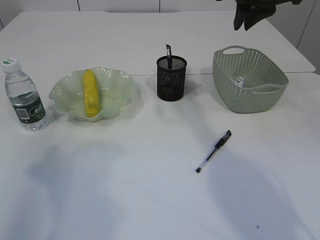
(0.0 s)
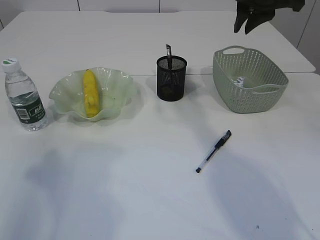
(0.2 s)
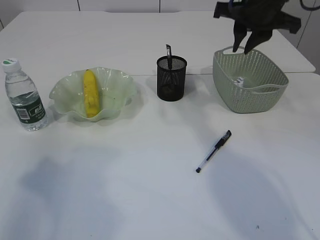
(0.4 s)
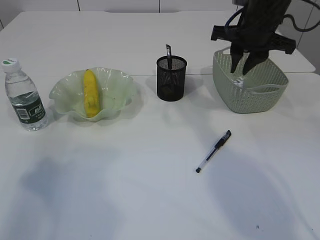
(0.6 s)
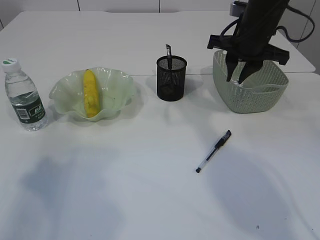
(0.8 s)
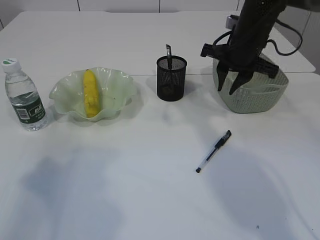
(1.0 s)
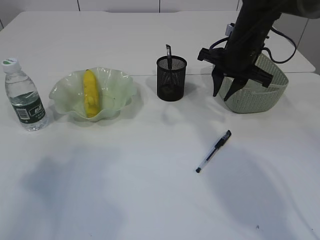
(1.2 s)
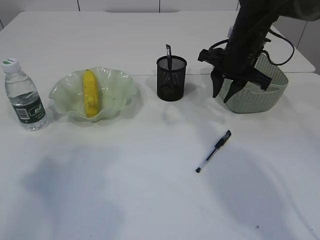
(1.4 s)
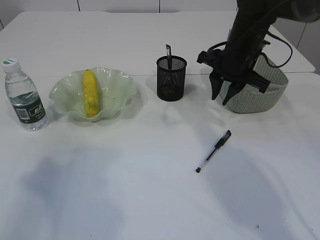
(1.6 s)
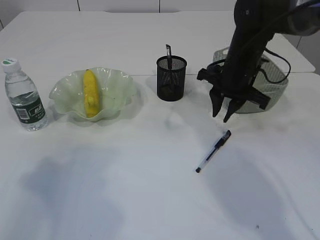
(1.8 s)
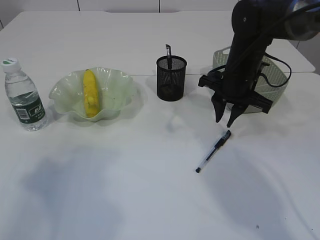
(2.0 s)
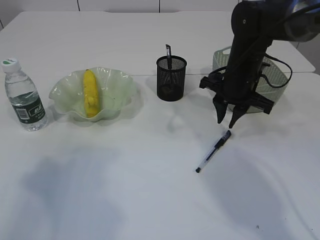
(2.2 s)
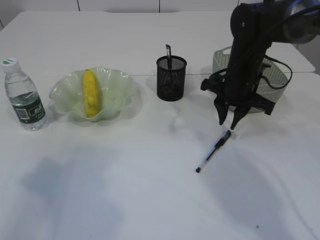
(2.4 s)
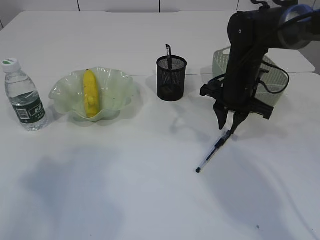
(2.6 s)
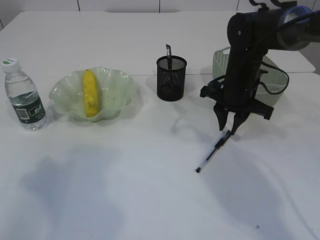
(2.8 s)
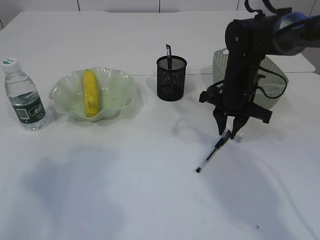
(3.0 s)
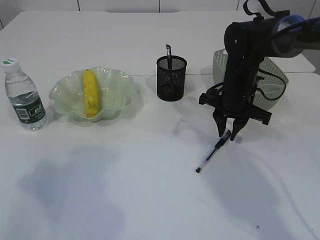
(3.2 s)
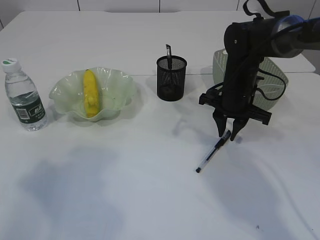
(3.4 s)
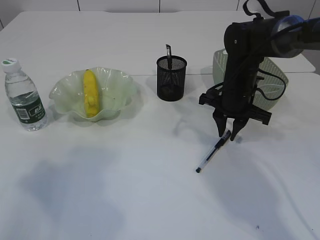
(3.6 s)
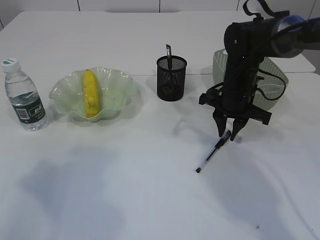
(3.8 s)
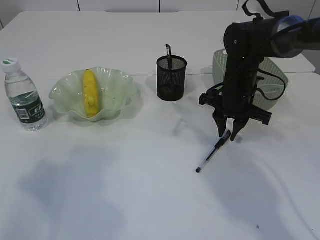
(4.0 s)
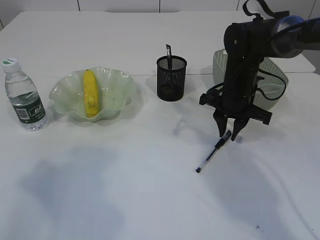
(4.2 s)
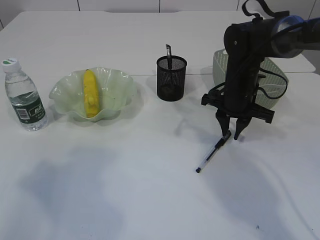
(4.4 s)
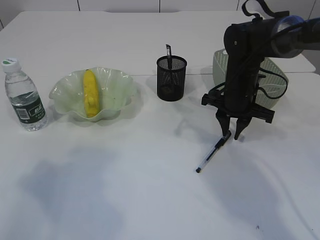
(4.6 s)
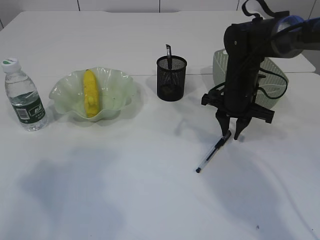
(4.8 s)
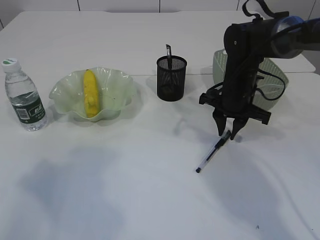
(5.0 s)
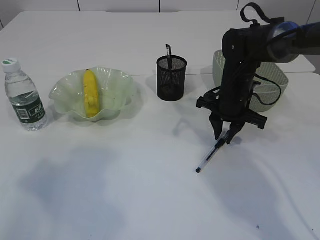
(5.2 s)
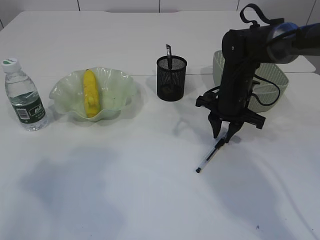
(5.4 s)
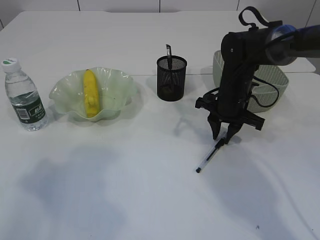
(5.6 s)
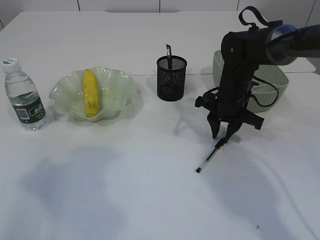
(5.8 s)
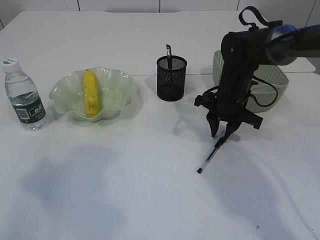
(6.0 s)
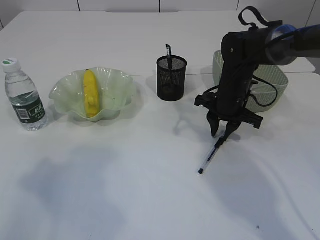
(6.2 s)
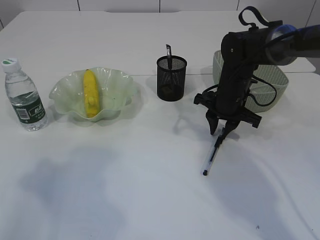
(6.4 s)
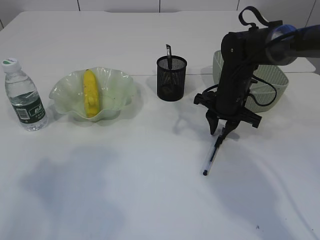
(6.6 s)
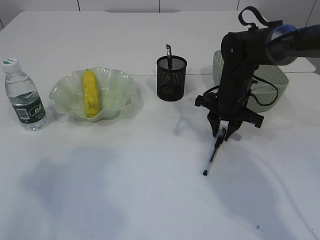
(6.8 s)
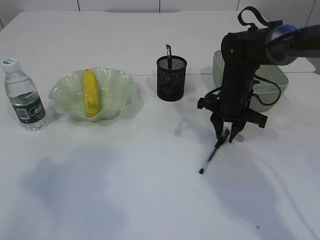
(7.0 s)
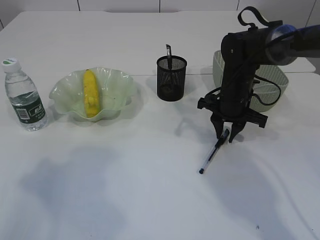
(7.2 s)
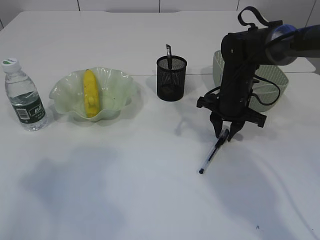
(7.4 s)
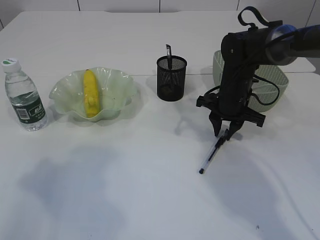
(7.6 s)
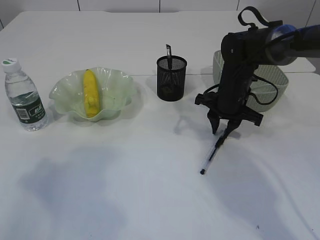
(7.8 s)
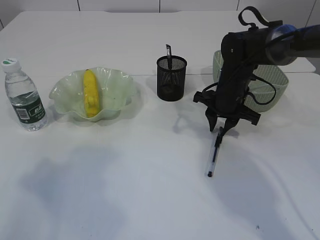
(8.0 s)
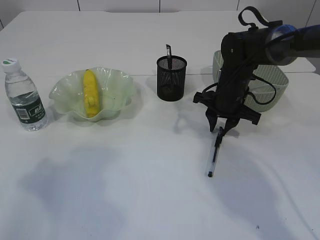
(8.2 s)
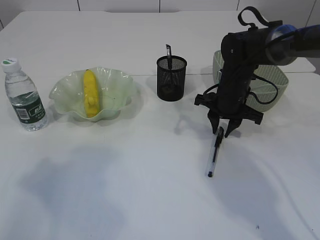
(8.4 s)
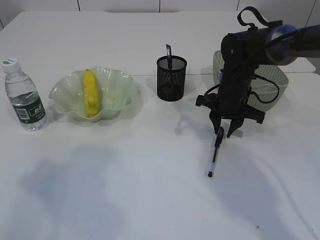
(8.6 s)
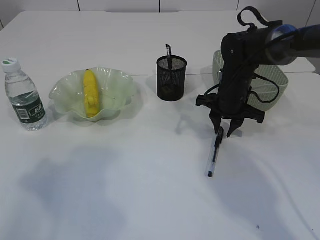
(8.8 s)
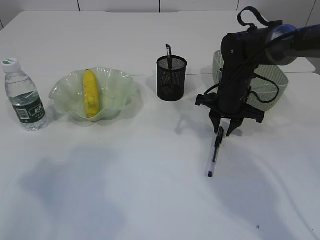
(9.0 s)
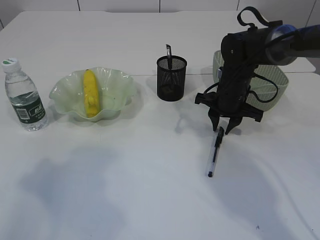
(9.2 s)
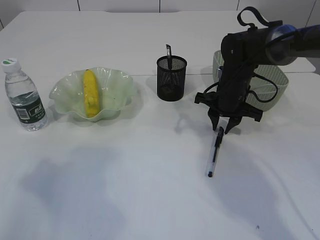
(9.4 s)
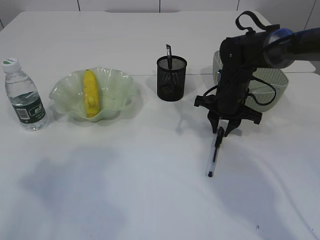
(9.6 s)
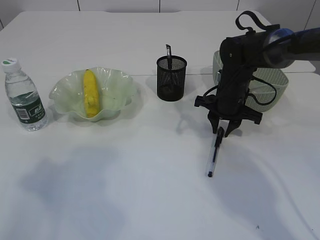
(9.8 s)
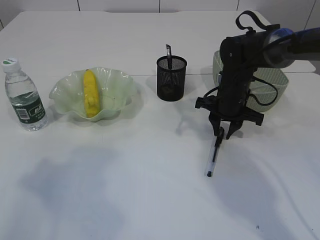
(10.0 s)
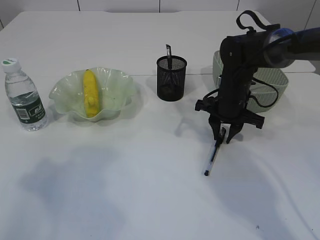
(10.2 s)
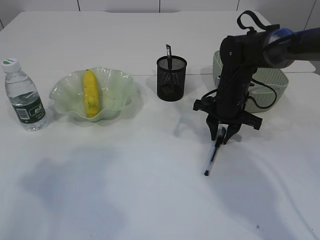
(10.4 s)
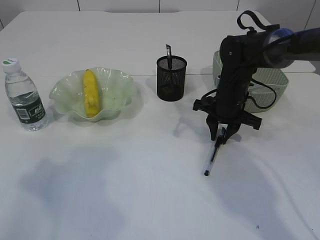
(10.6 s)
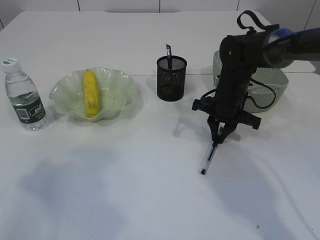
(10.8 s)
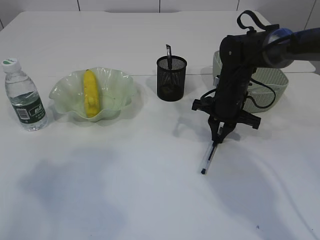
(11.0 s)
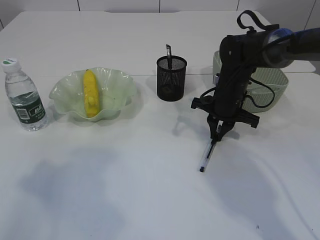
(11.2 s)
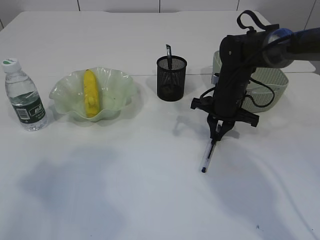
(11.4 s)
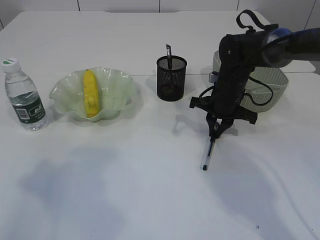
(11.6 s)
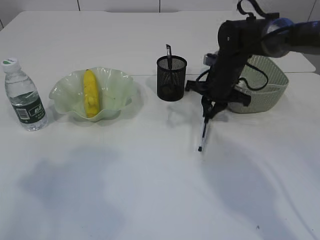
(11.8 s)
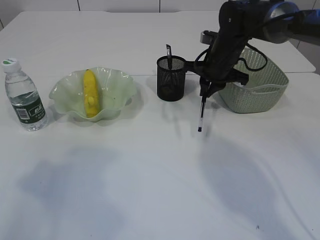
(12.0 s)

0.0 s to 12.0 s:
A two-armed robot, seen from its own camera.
Step, 0.0 to 11.8 s: Pick up the pen with right arm.
0.0 to 1.6 s: The right gripper heads downward, covering some 15 cm.
1.6 to 3.0 s: The right gripper heads downward, covering approximately 5 cm.
3.0 to 4.4 s: The two grippers keep their place.
4.4 to 6.0 s: The grippers move only a little.
6.0 to 7.6 s: Neither gripper changes place.
7.6 to 10.4 s: The grippers stay close to where they were, moving slightly.
10.4 to 12.0 s: The right gripper is displaced upward by roughly 5 cm, and closes up.

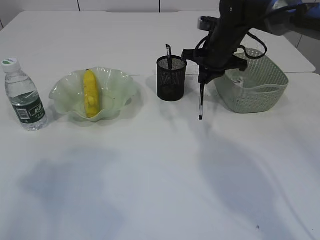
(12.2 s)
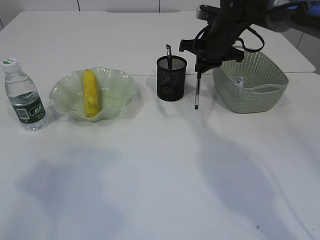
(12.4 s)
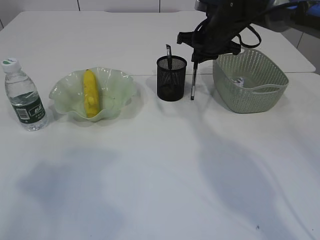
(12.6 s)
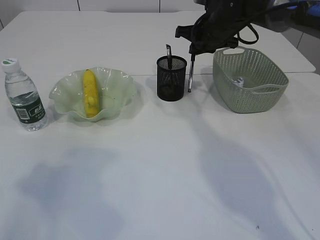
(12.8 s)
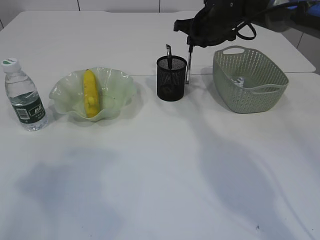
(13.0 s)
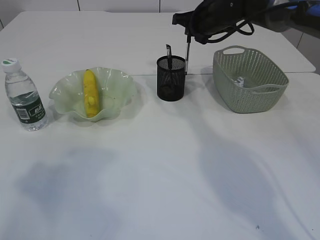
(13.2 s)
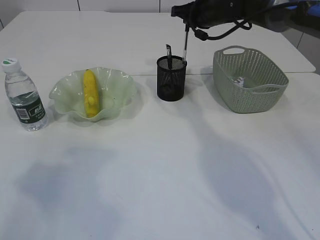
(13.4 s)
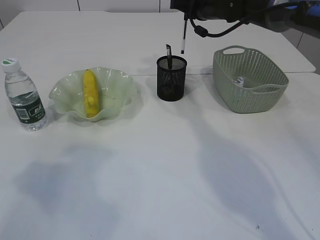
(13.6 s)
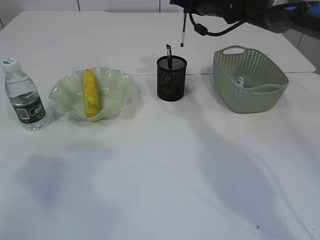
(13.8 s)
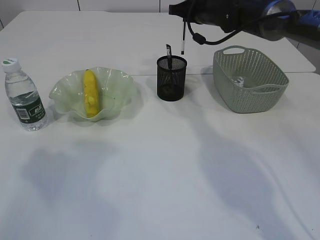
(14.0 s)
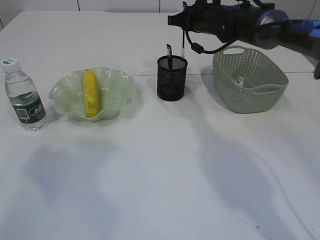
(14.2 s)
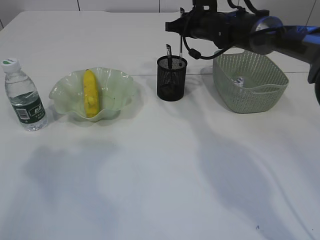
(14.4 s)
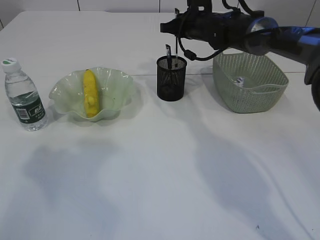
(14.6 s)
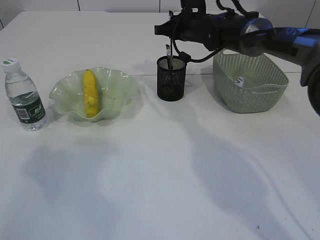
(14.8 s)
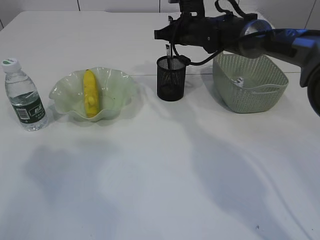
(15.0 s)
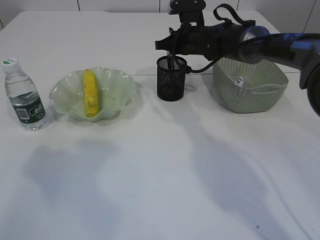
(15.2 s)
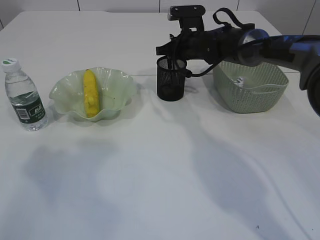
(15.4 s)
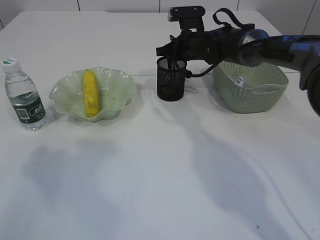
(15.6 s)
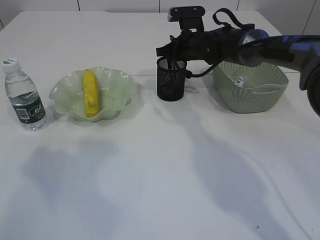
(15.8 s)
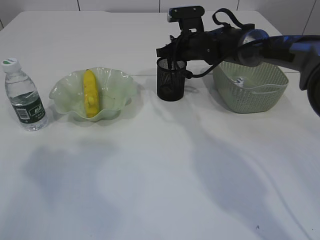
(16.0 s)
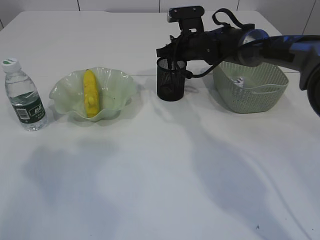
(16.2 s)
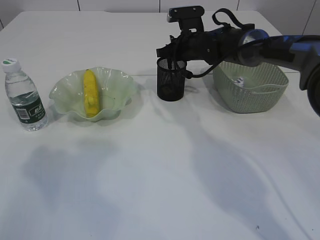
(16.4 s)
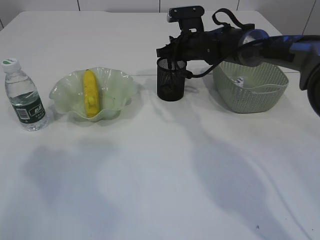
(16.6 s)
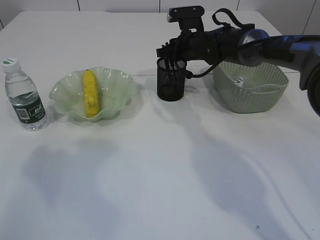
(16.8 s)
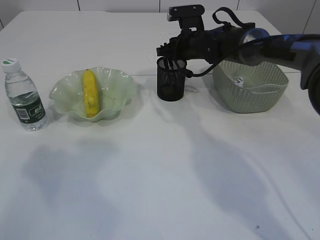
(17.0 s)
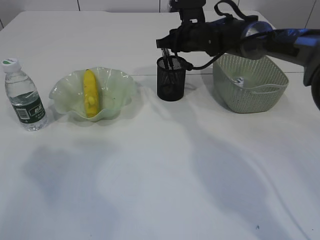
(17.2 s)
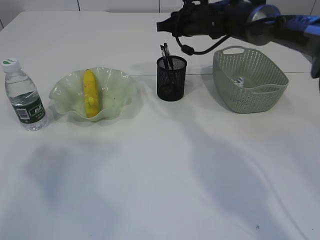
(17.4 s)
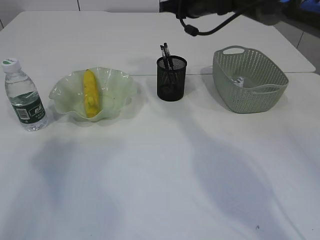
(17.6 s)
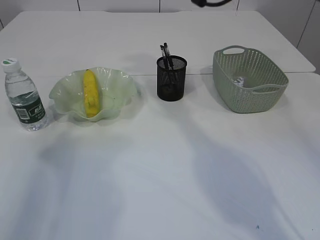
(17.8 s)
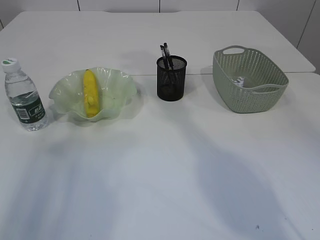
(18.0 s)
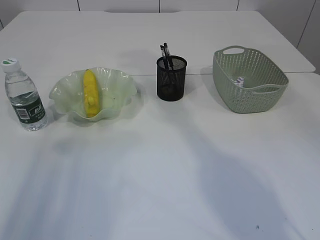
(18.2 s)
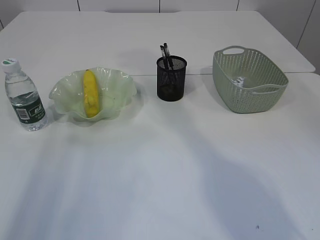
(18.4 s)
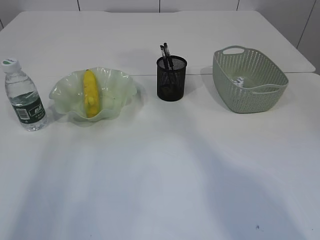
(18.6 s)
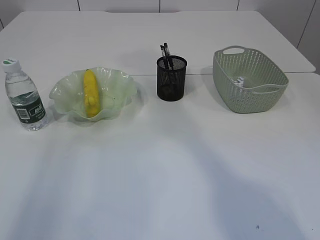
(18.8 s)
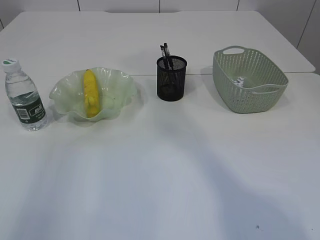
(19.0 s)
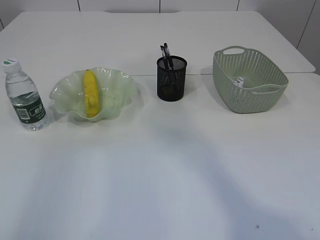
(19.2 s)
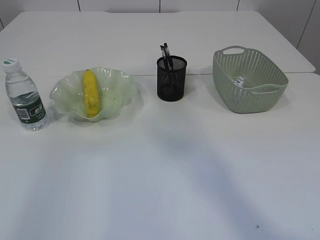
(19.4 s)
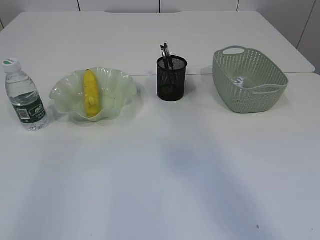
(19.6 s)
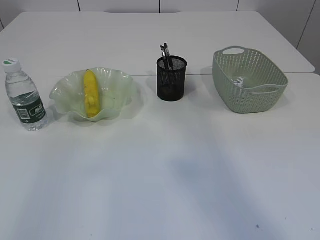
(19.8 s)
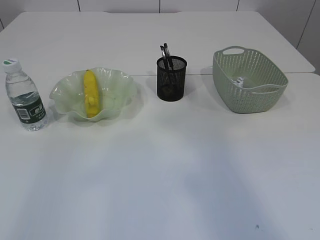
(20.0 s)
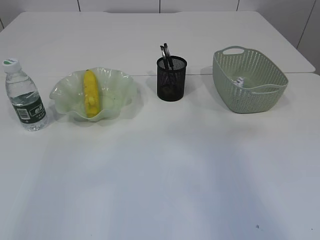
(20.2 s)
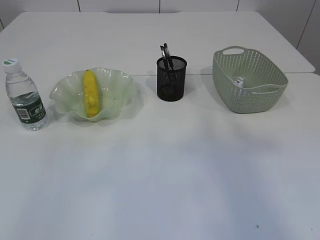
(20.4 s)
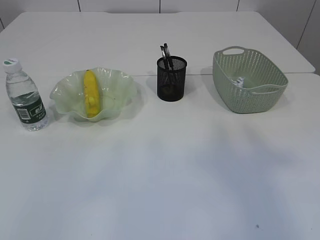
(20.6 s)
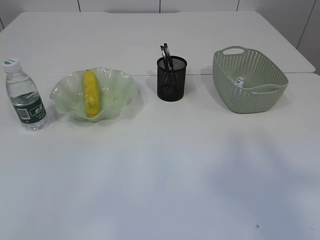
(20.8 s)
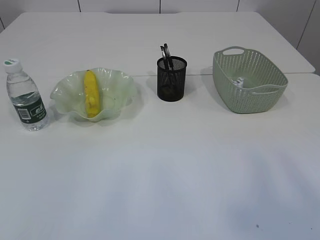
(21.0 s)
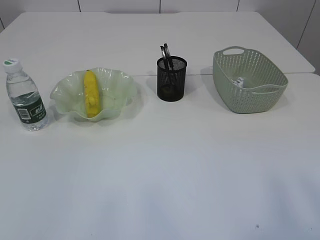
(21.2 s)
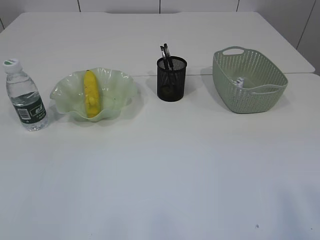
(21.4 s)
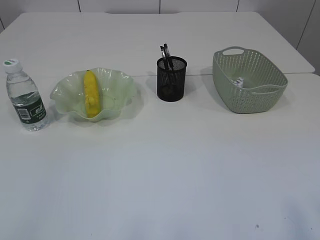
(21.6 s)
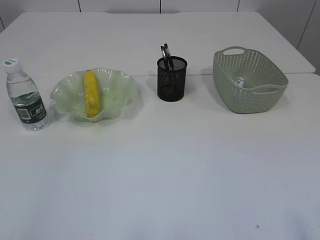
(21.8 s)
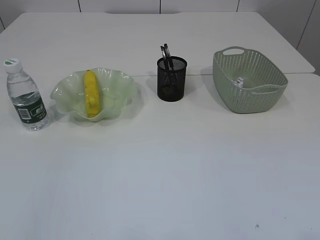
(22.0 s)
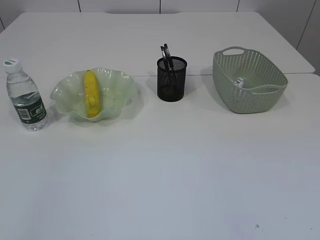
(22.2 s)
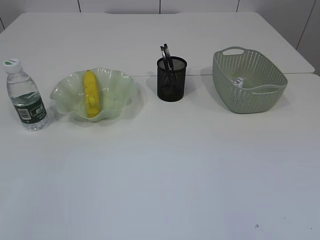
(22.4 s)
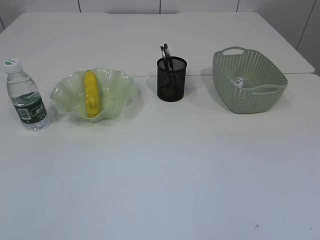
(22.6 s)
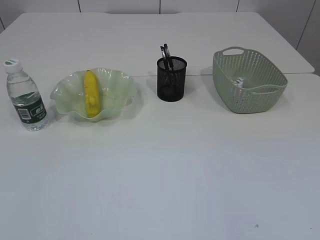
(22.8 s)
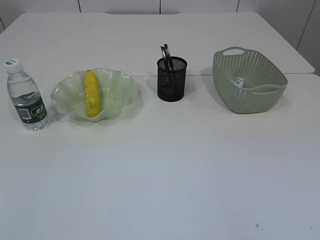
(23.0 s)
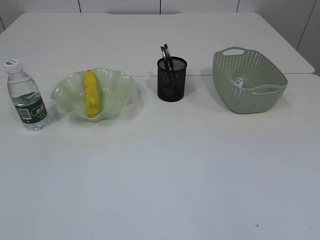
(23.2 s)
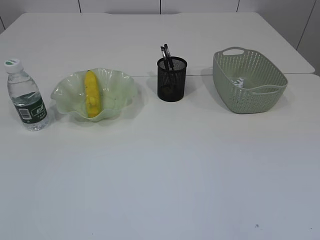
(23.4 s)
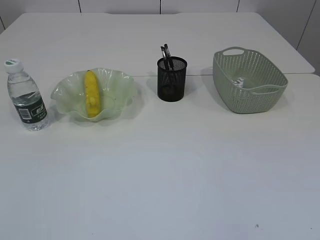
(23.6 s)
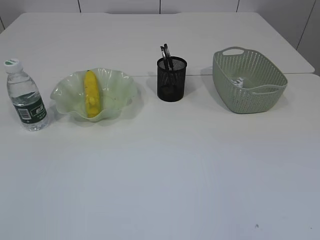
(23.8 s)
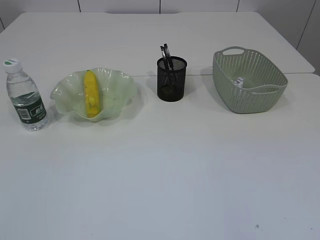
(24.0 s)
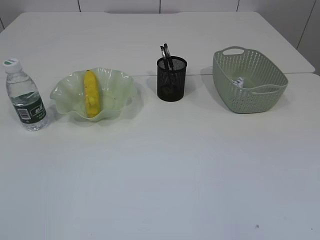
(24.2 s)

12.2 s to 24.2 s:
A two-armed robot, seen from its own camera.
Step, 12.2 to 17.4 s: Place the pen into the pen holder.
12.2 to 13.8 s: The right gripper travels upward by about 5 cm.
13.8 to 15.2 s: The right gripper shifts approximately 10 cm downward.
15.2 to 16.6 s: Neither gripper changes place.
16.6 to 18.2 s: The right gripper travels upward by about 25 cm.
18.2 to 19.8 s: The left gripper heads upward and backward, covering about 20 cm. Meanwhile the right gripper is displaced backward and upward by roughly 35 cm.
19.8 to 21.2 s: The right gripper travels backward by roughly 20 cm. The left gripper shifts about 15 cm backward.
